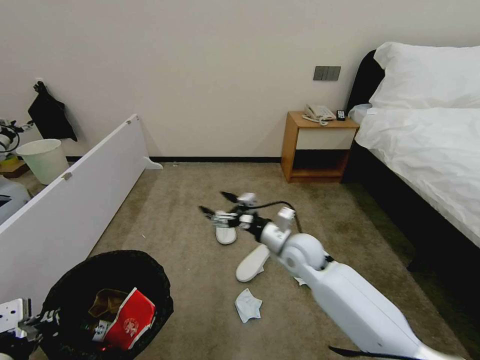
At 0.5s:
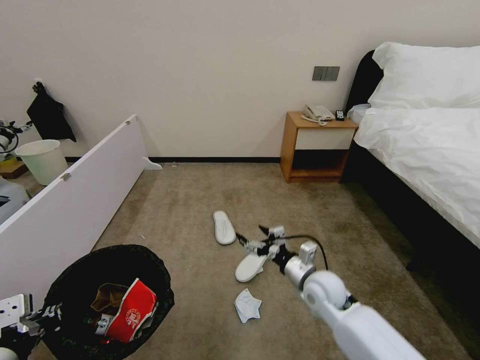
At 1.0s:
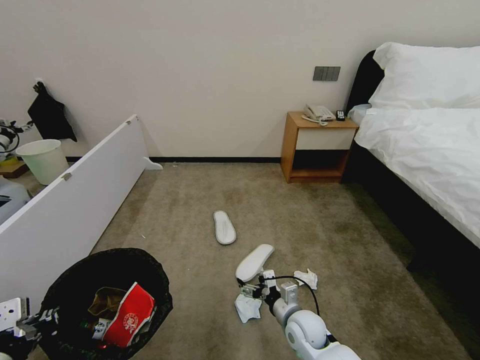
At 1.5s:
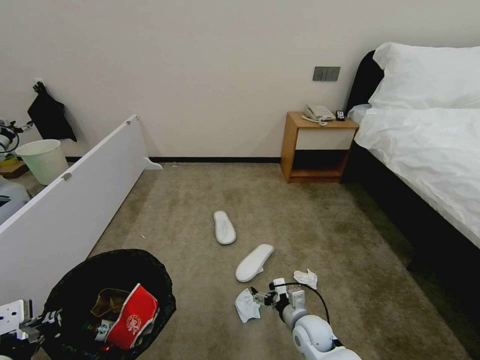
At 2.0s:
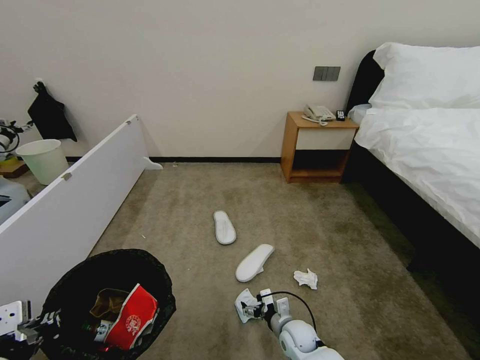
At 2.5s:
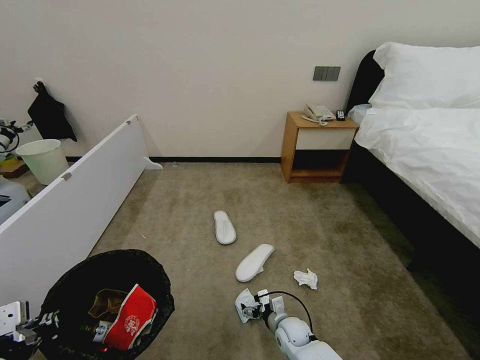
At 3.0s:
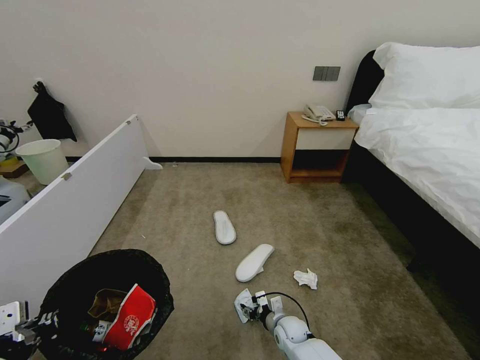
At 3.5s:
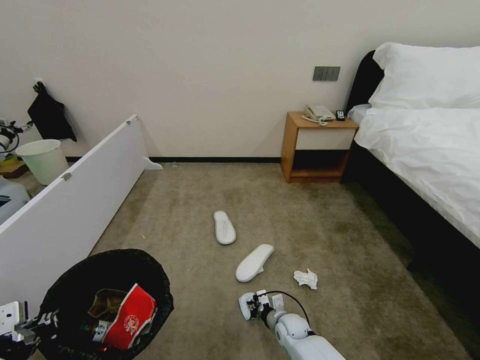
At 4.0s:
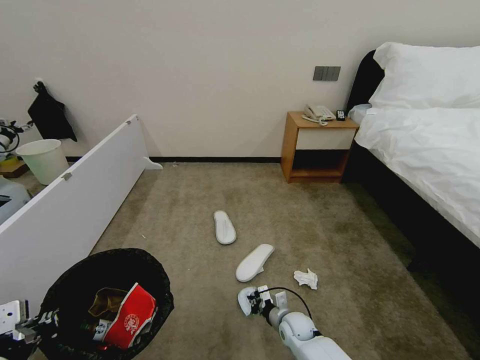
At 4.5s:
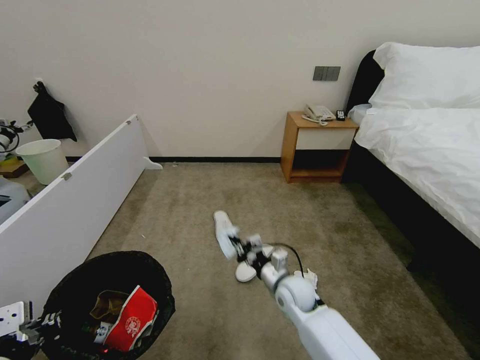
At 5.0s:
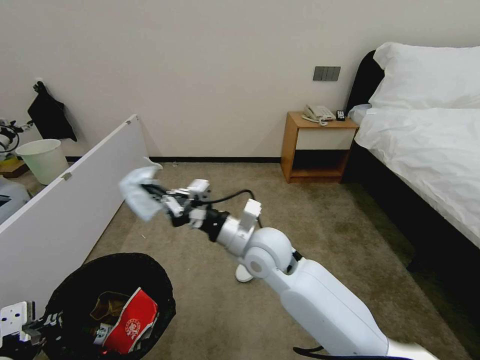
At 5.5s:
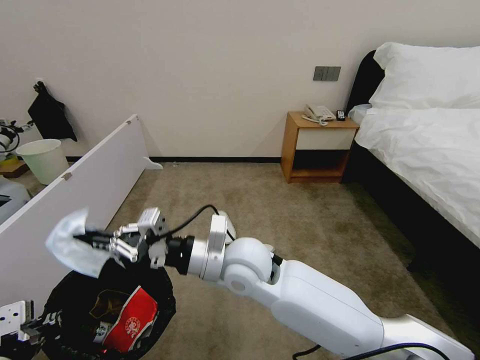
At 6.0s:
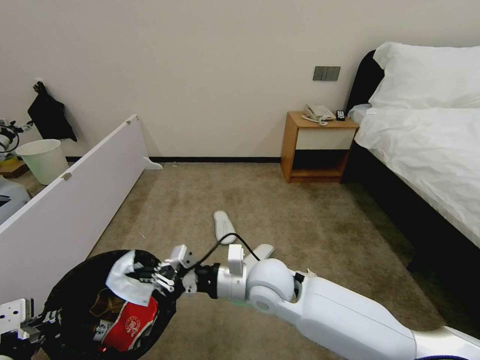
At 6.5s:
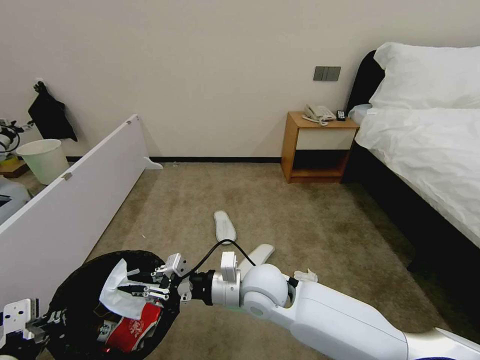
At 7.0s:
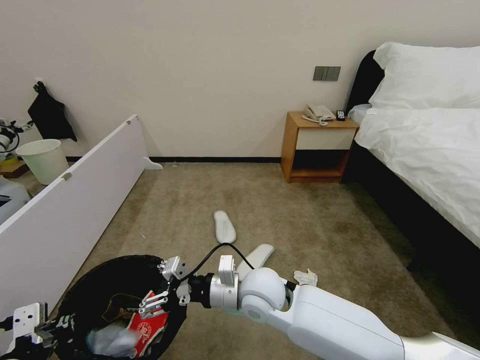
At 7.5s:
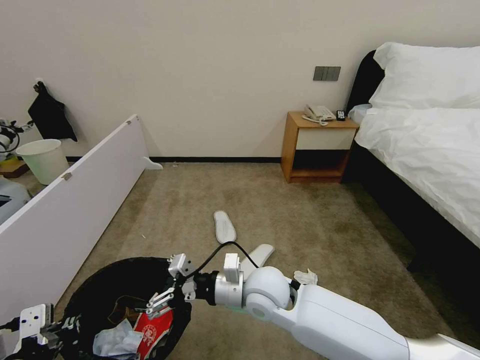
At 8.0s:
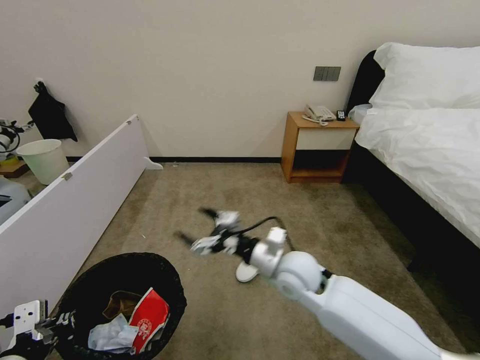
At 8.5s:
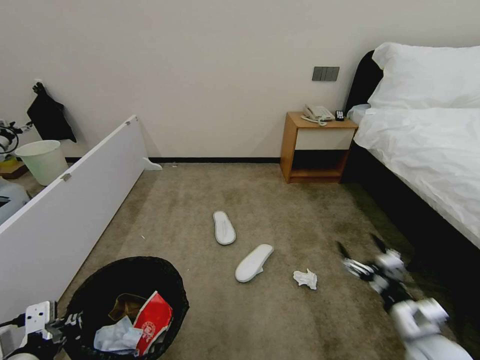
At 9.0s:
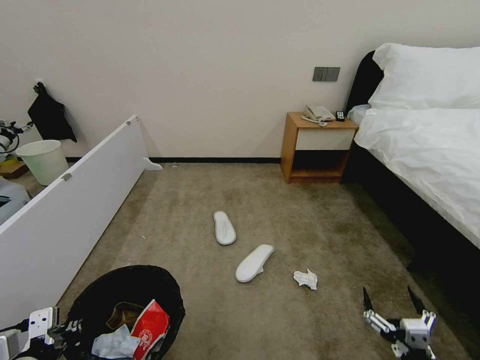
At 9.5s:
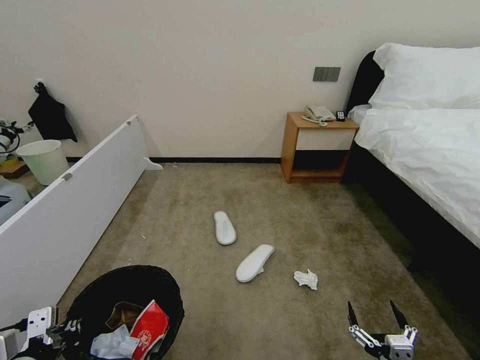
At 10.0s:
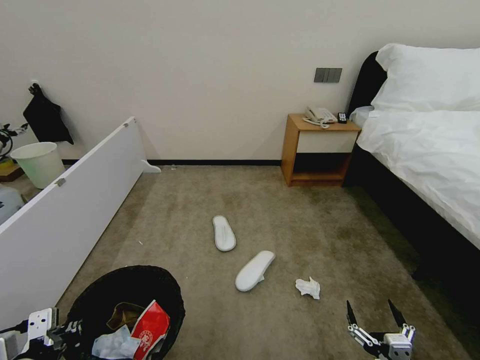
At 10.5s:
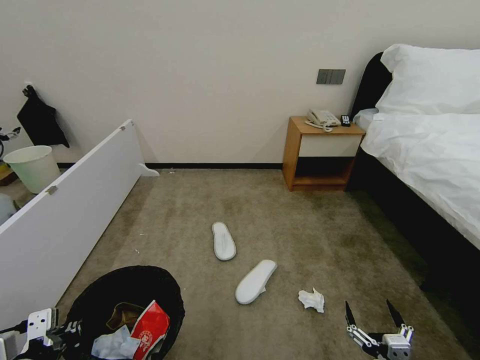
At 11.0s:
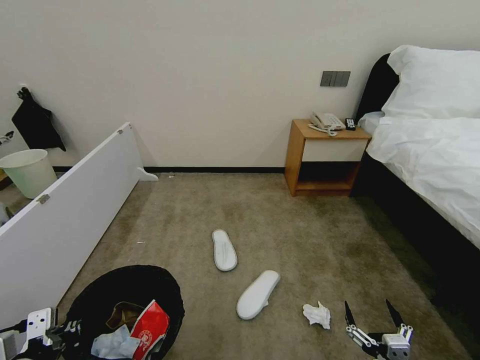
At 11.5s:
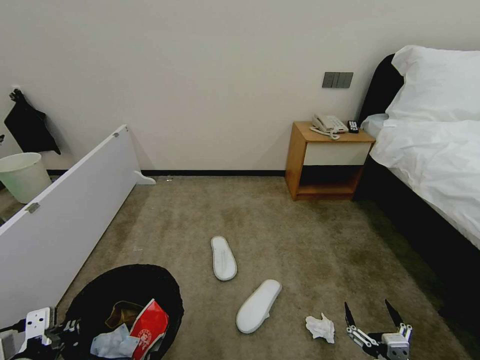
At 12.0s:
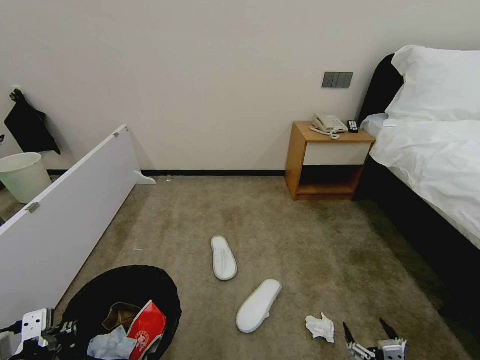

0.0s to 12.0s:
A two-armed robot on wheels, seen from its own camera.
Task of the whole recording: Pick up the trash bin, then pick up the garbage from the floor and place it into the trash bin.
0.0s to 2.0s: The right gripper heads downward, covering some 25 cm.
2.0s to 4.0s: The right gripper closes its fingers.
4.0s to 6.0s: The right gripper heads upward, covering roughly 30 cm.
6.0s to 8.0s: The right gripper travels to the right by about 10 cm, and opens up.
8.0s to 10.0s: The right gripper moves backward, to the right and downward, approximately 35 cm.

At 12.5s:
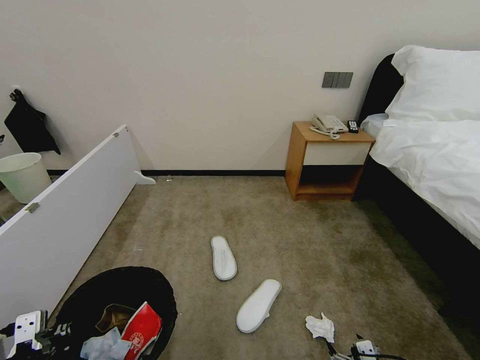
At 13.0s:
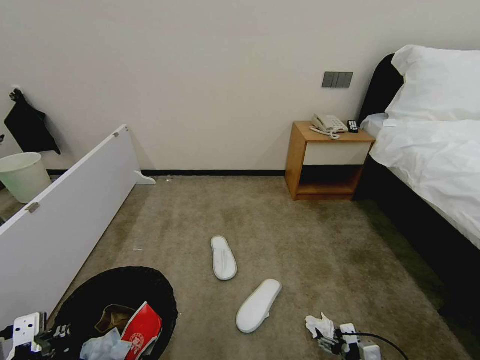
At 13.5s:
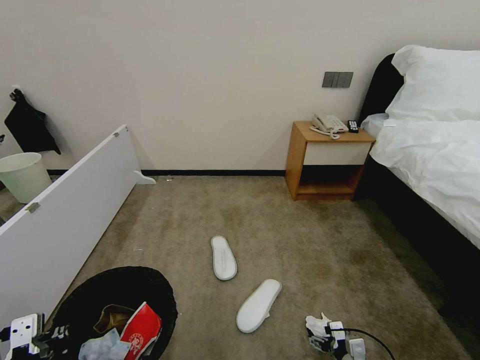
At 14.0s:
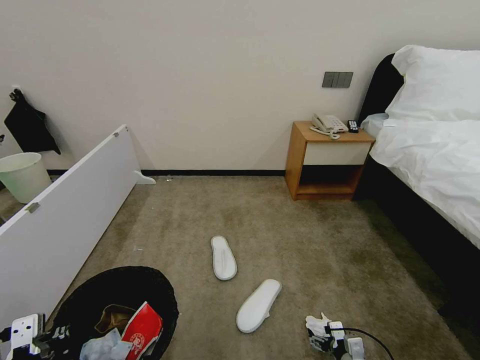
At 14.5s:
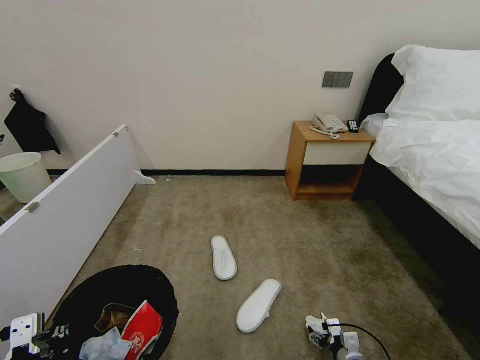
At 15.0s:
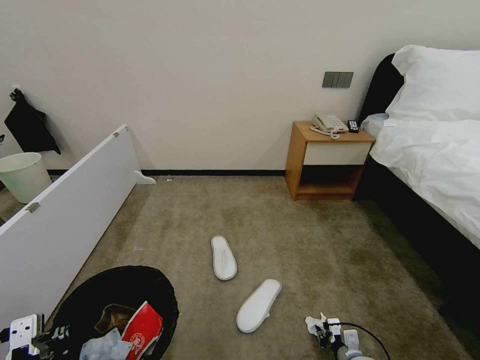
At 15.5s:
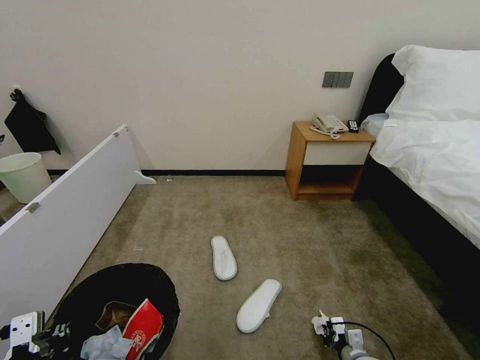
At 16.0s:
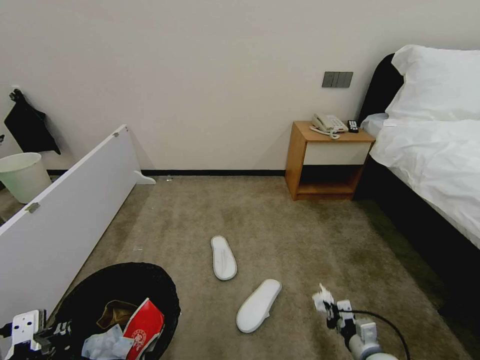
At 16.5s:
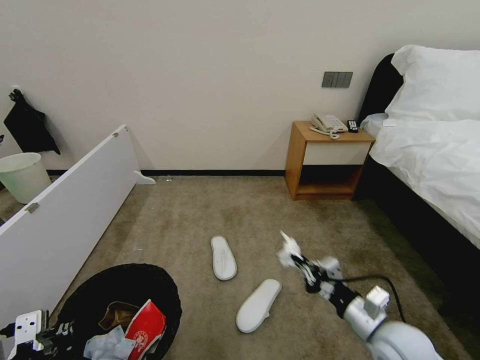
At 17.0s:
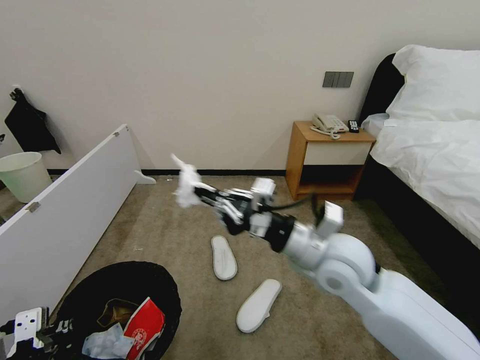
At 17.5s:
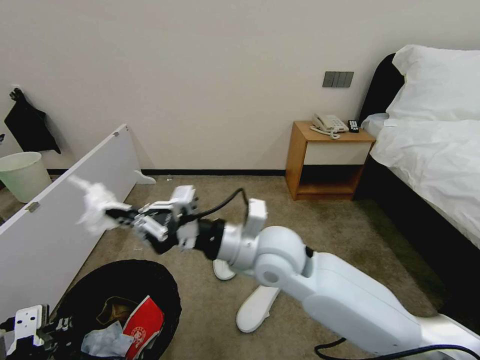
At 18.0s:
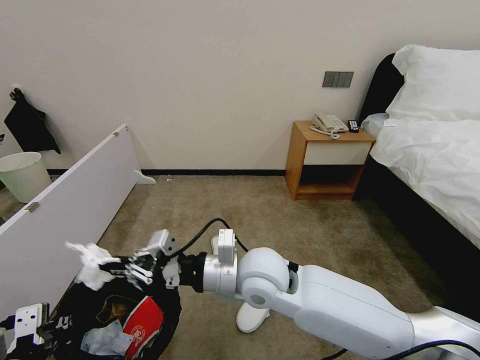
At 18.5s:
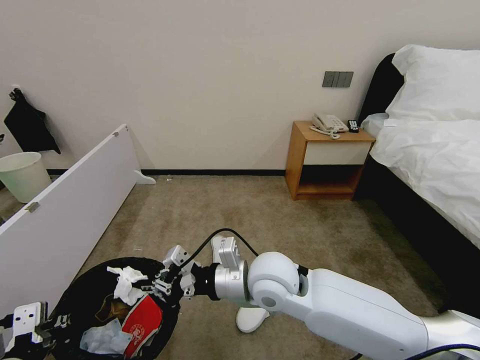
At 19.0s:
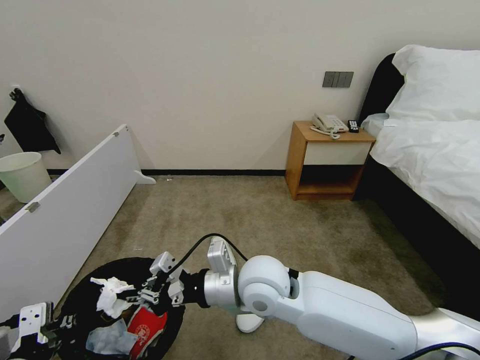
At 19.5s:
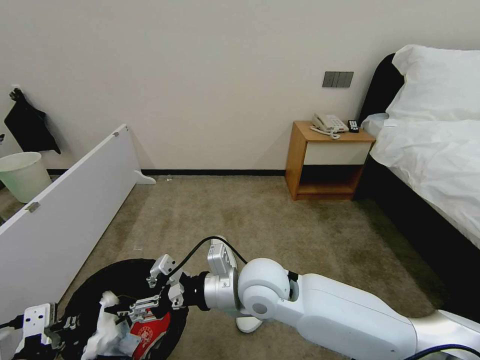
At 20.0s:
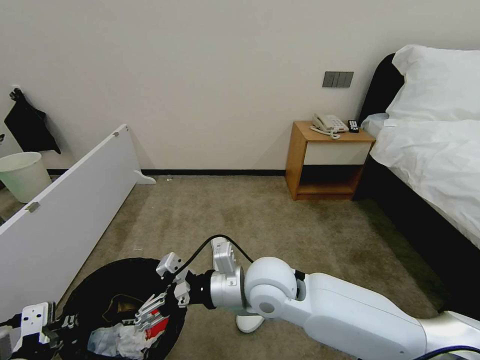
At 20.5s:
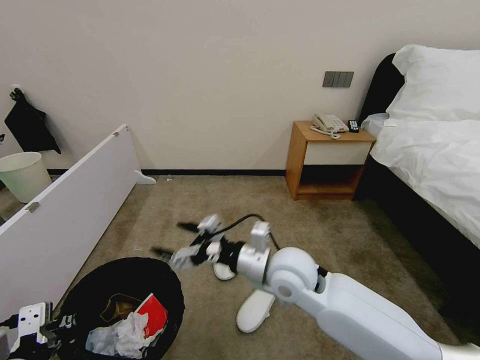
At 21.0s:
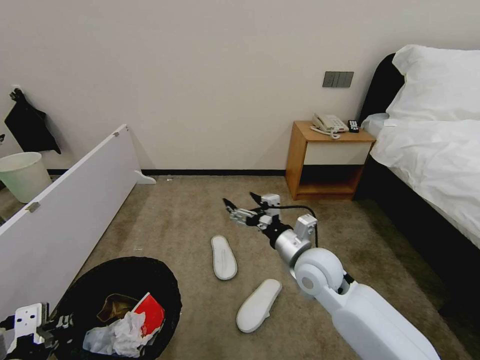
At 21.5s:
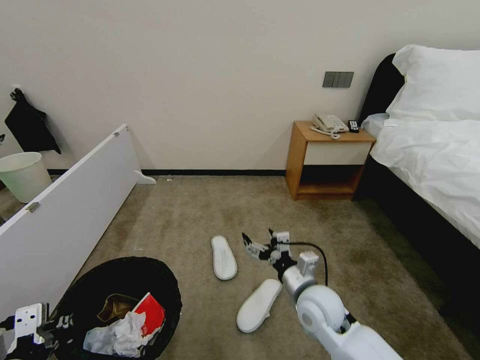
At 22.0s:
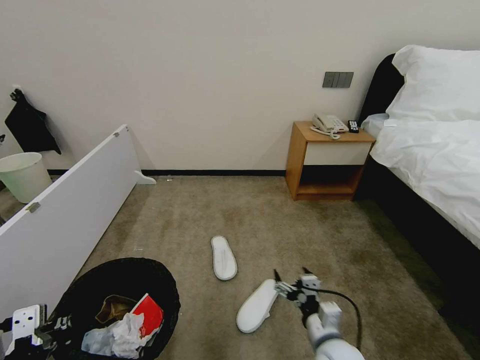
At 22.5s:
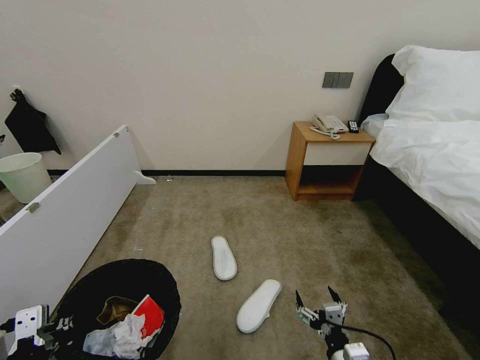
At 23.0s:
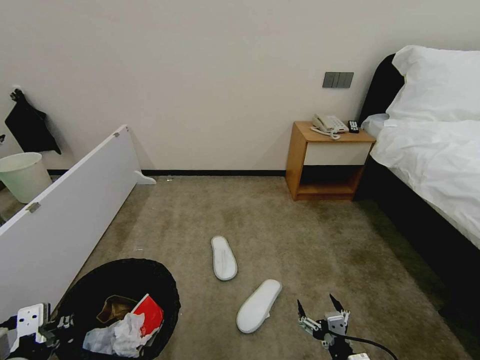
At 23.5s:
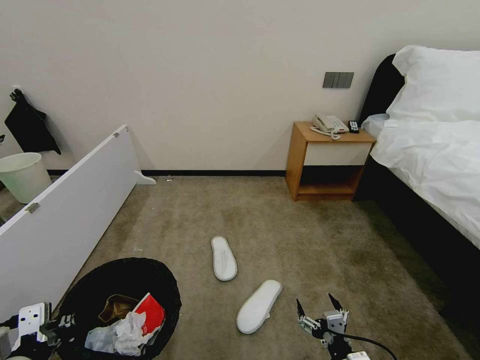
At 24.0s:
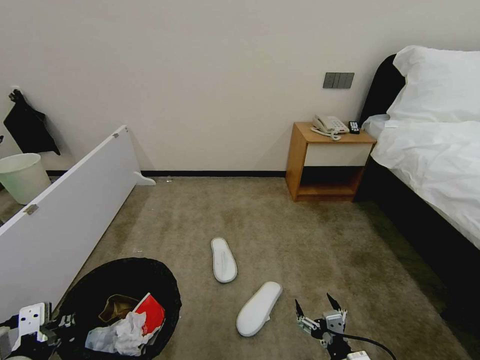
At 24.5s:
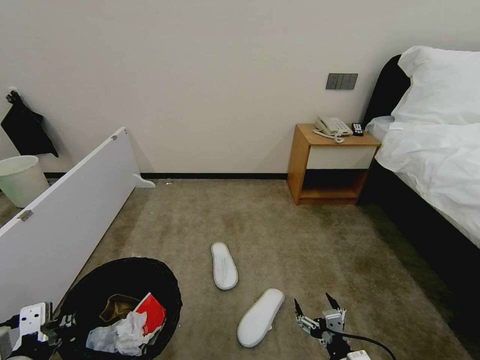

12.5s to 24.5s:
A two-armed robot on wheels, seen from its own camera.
Task of the whole recording: Pick up the trash bin, then pick up the garbage from the floor and place it into the trash bin.
12.5s to 14.5s: The right gripper shifts roughly 15 cm forward and downward.
14.5s to 16.5s: The right gripper goes some 25 cm upward, and closes up.
16.5s to 18.5s: The right gripper is displaced to the left and upward by roughly 25 cm.
18.5s to 20.5s: The right gripper opens up.
20.5s to 22.5s: The right gripper shifts roughly 30 cm downward, backward and to the right.
22.5s to 24.5s: The grippers make only small movements.

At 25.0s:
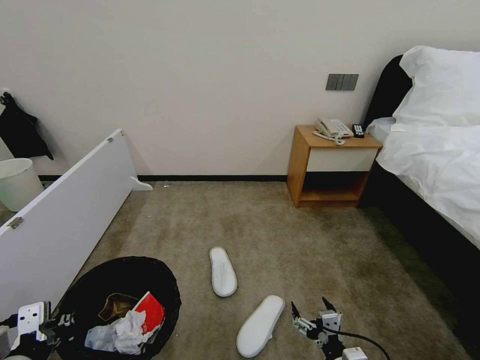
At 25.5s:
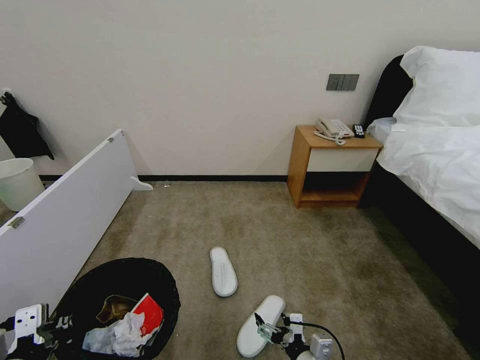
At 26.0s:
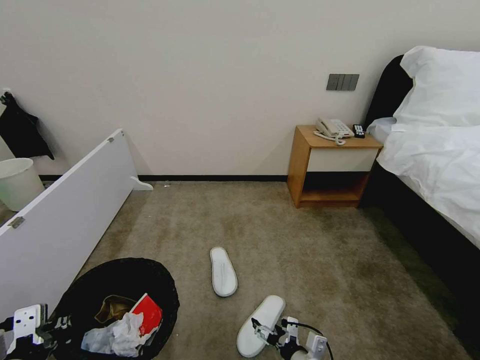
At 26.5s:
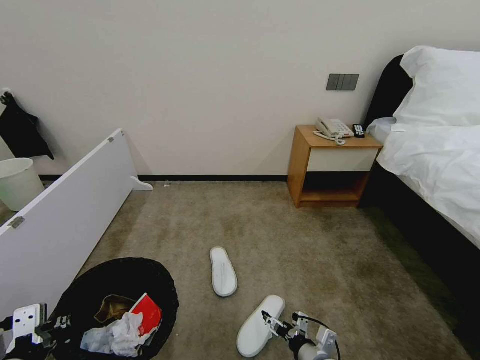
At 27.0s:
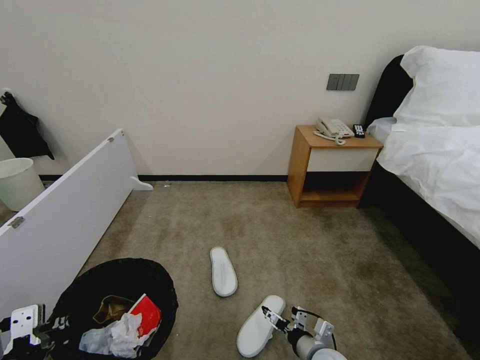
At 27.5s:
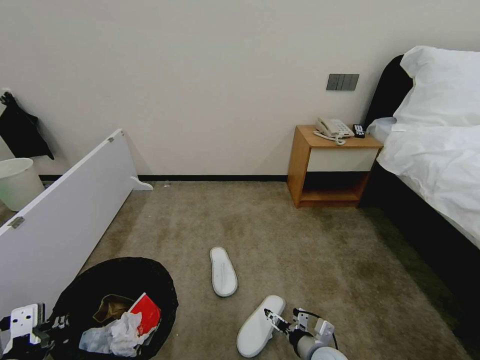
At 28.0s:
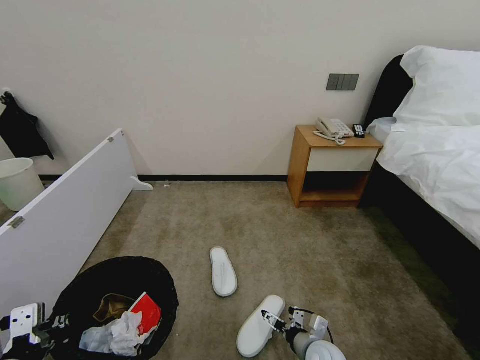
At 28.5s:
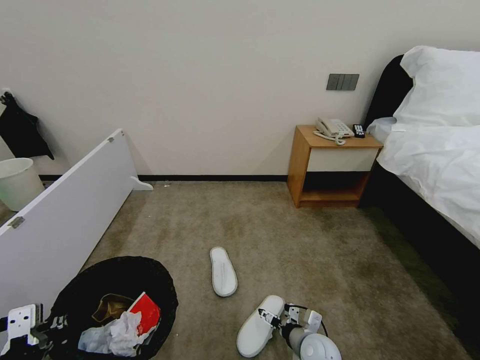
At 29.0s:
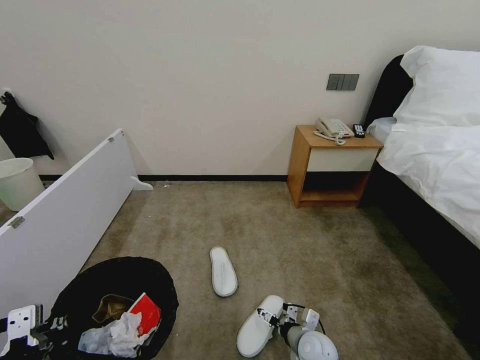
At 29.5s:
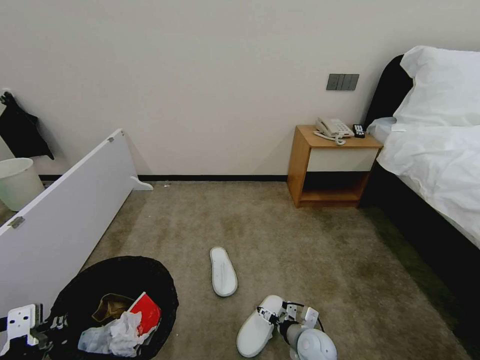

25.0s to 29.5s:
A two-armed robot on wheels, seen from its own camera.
Task of the whole recording: Pick up the trash bin, then pick up the garbage from the floor and place it into the trash bin.
25.0s to 27.0s: The right gripper goes approximately 10 cm forward and downward.
27.0s to 29.5s: The right gripper heads forward, covering roughly 5 cm.
